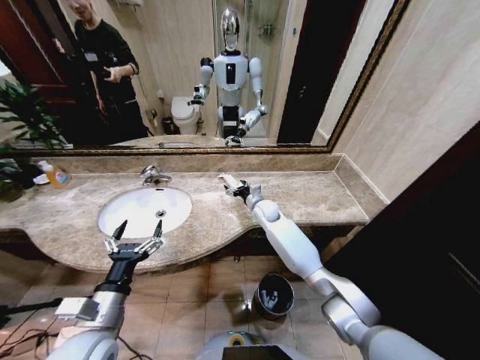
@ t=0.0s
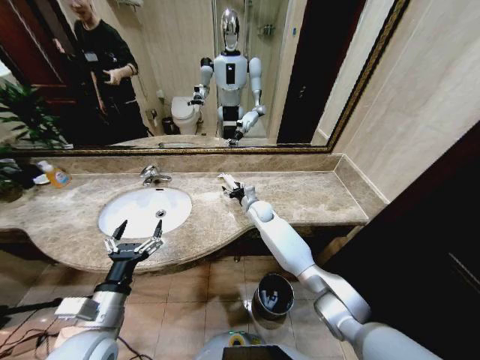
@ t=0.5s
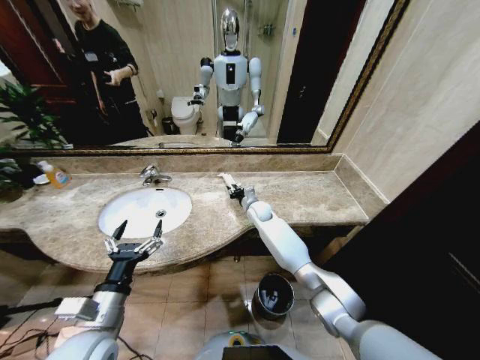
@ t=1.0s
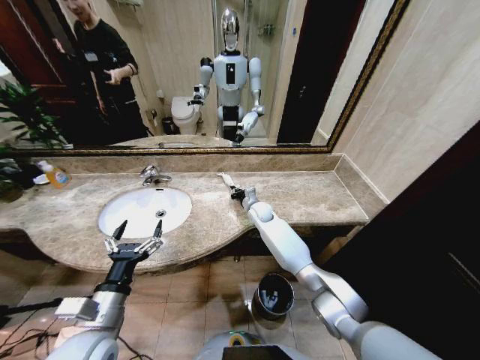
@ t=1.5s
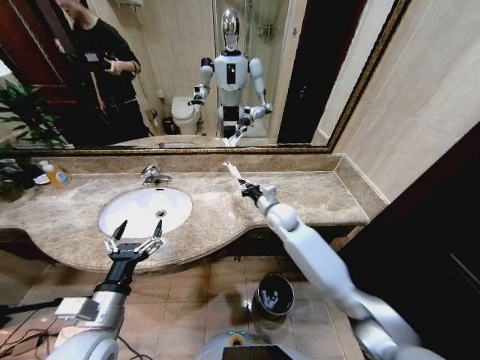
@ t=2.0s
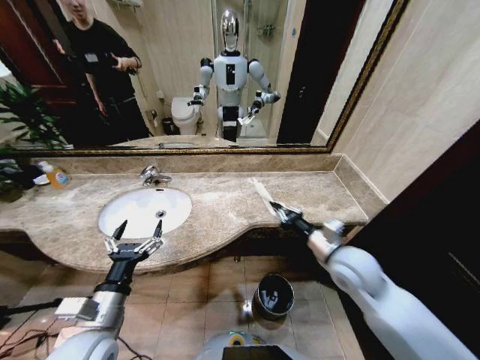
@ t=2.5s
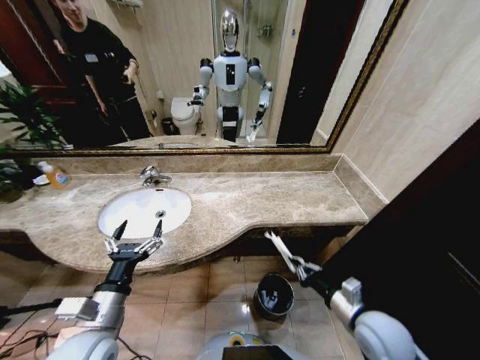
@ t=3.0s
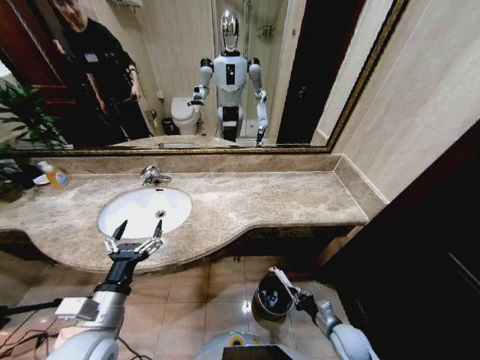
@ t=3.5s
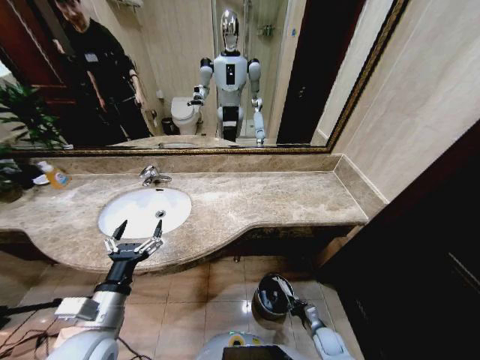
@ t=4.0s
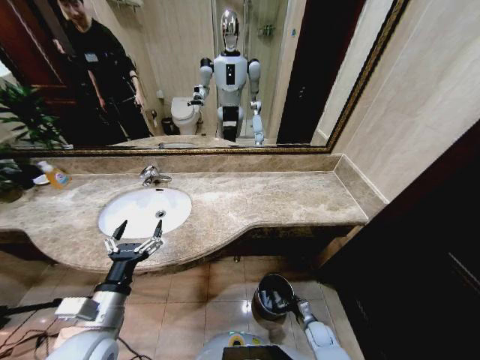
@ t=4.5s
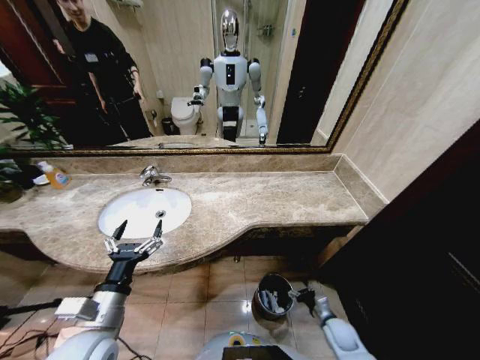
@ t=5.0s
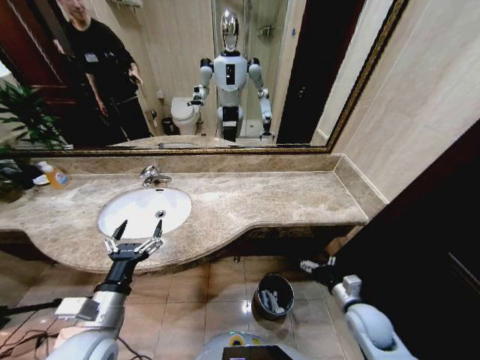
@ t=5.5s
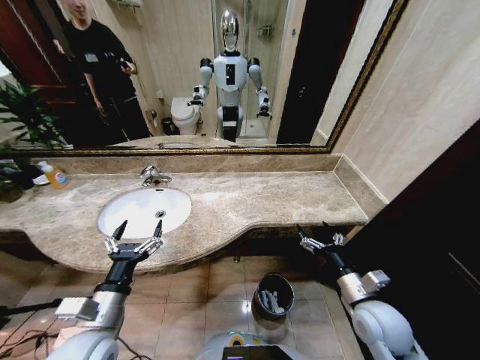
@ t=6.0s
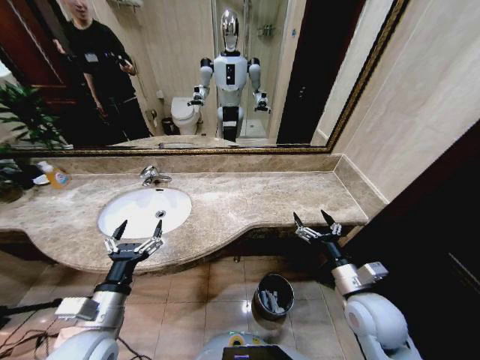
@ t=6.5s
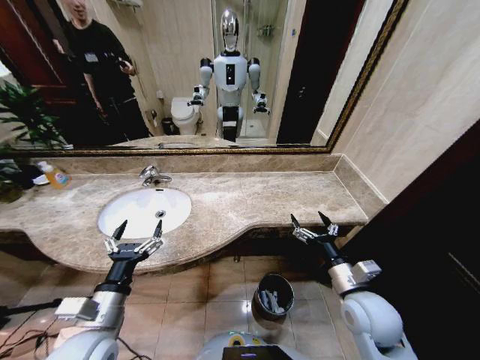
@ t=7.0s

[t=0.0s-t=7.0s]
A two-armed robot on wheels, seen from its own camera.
Task of the whole recording: Pick up the trash from the sink and place it in the trash bin.
t=0.0s to t=2.0s: The right gripper heads backward, covering roughly 5 cm, and closes up.
t=2.0s to t=3.5s: The right gripper travels backward, downward and to the right by roughly 40 cm.
t=3.5s to t=5.0s: The right gripper is displaced downward by approximately 5 cm, and opens.
t=5.0s to t=7.0s: The right gripper moves upward, roughly 30 cm.
